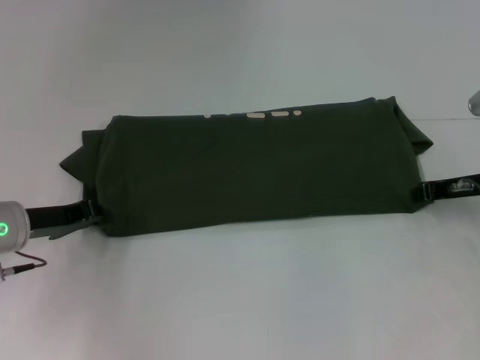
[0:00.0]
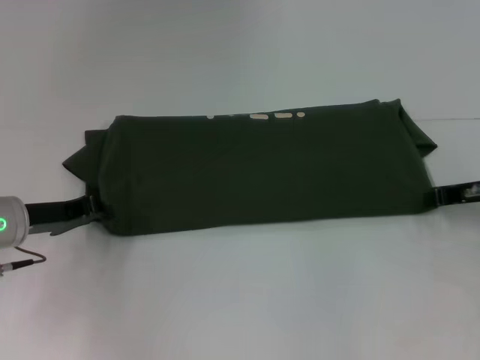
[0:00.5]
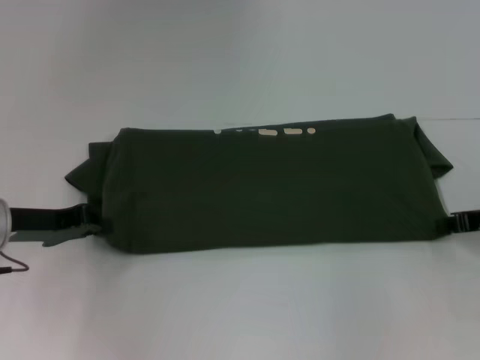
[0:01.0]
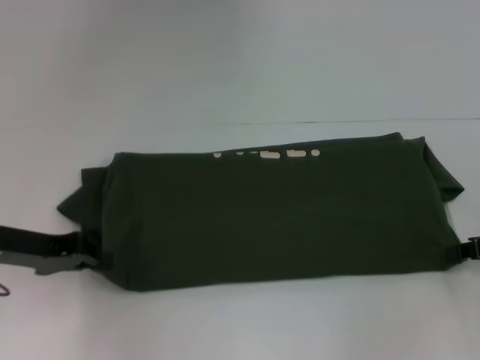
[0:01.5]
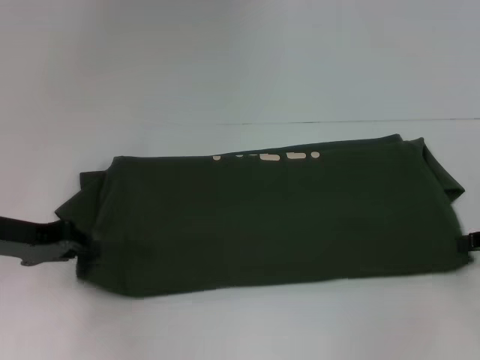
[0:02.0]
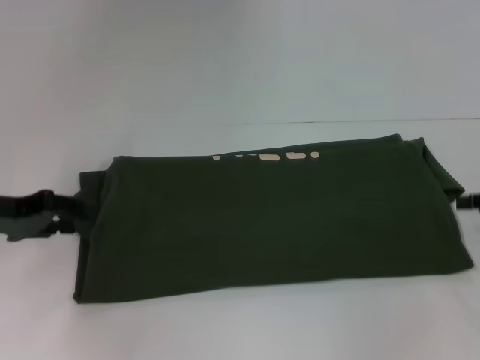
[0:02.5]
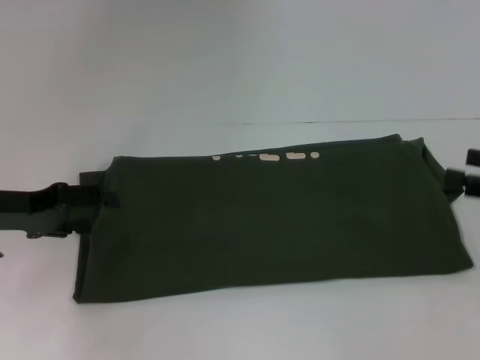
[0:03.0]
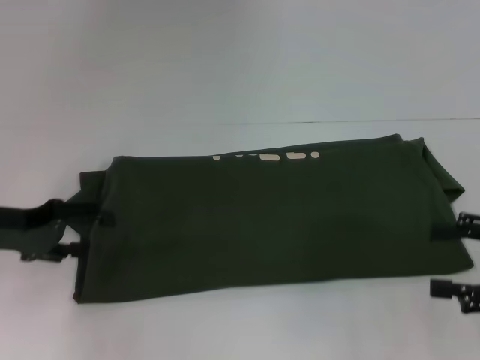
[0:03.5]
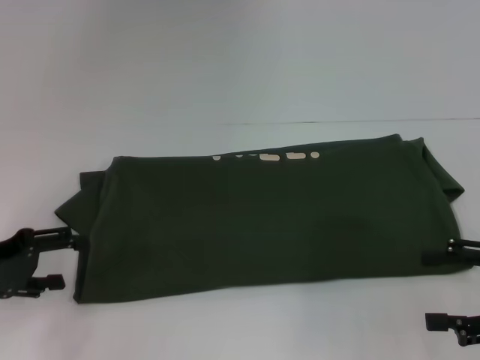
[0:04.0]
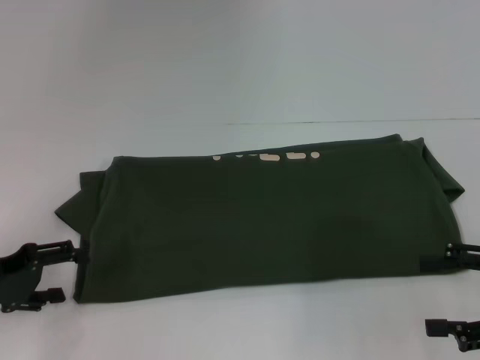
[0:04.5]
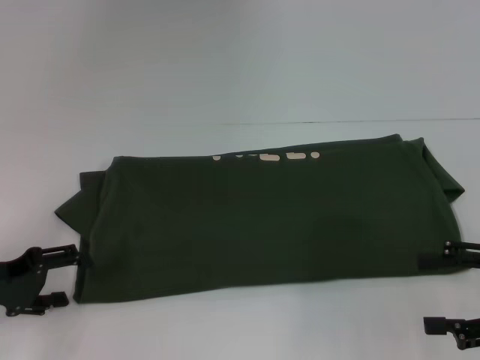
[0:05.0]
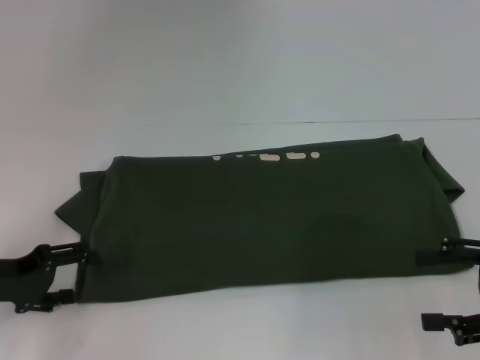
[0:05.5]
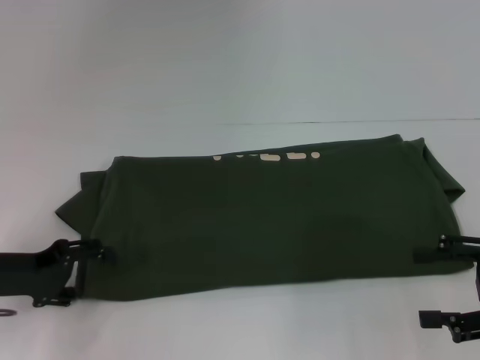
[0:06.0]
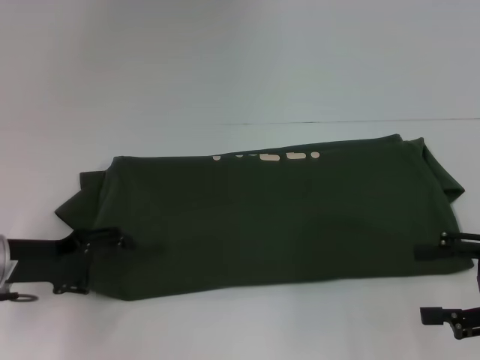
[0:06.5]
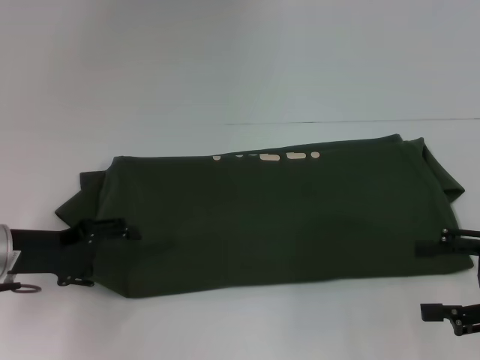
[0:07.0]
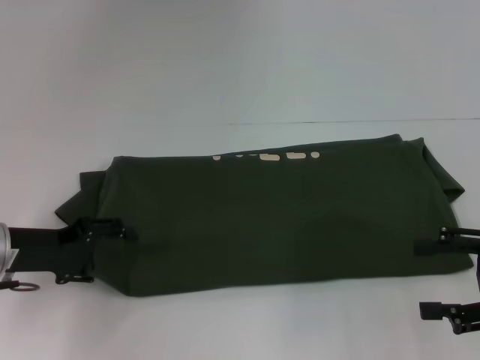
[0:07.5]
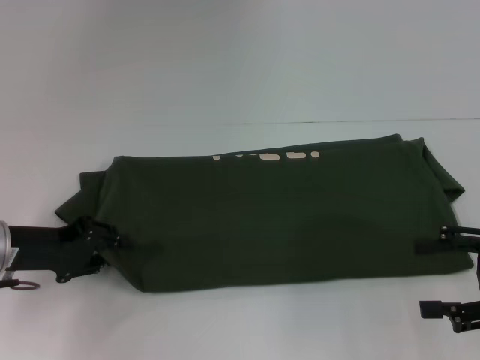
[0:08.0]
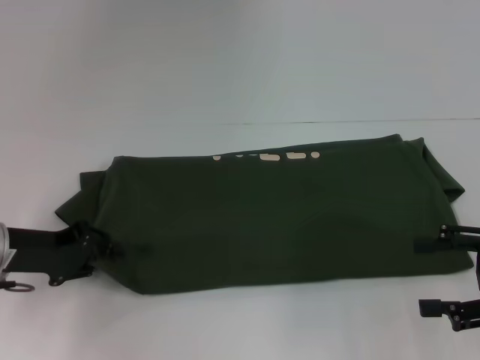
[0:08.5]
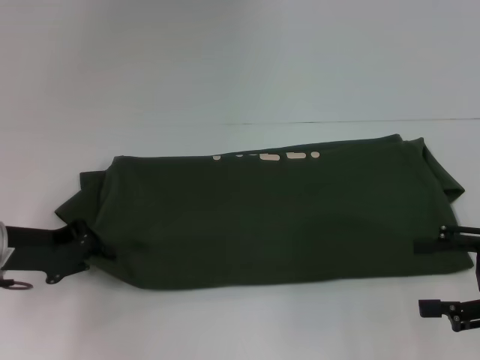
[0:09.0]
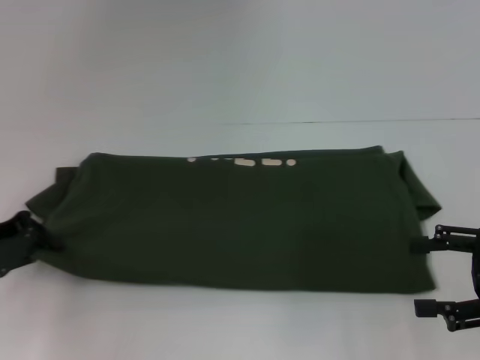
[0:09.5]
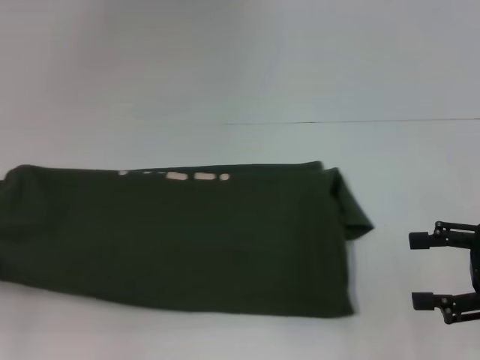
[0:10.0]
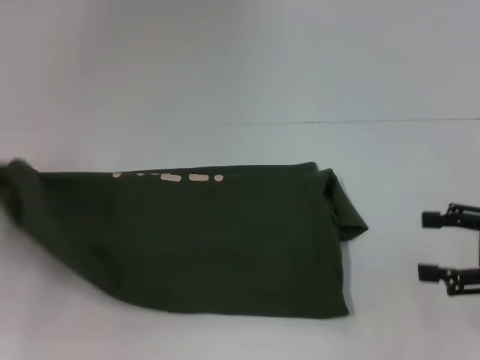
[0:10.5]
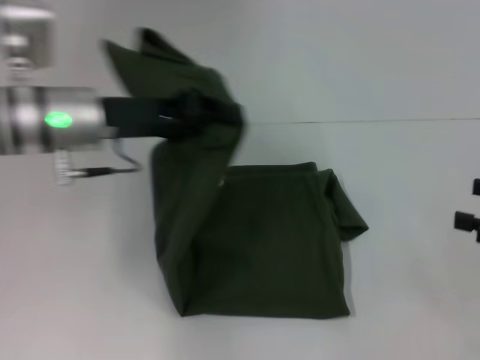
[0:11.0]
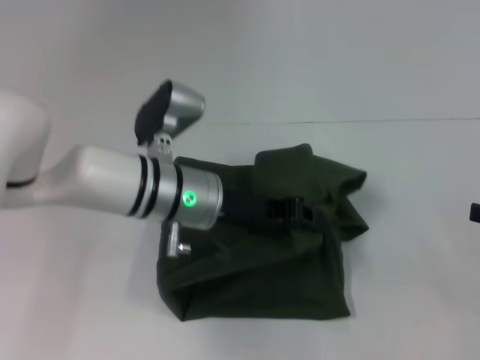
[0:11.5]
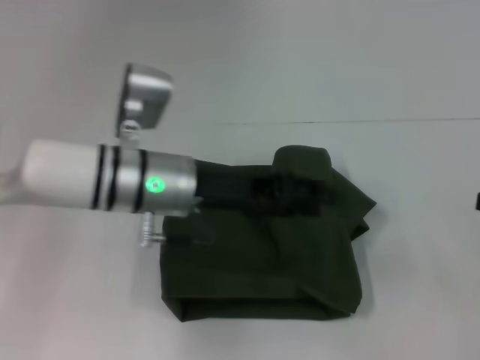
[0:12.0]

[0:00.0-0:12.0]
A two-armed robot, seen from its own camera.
Step, 0:00.0 to 0:02.0: Pull the clothes with your left hand.
Step, 0:00.0 to 0:02.0: Pull the clothes with your right hand.
Step, 0:02.5 to 0:11.5: Fold the clothes with your left hand.
0:00.0 to 0:02.0: The left gripper moves approximately 5 cm, while the right gripper travels backward and to the right by approximately 10 cm.
0:02.0 to 0:04.0: The right gripper shifts roughly 5 cm backward, and opens, while the left gripper changes place by some 5 cm, and opens up.
0:04.0 to 0:06.0: There are only small adjustments of the grippers.
0:06.0 to 0:08.0: The left gripper closes.
0:08.0 to 0:10.0: The left gripper goes approximately 10 cm to the left, and closes.
0:10.0 to 0:12.0: The right gripper heads to the right, covering about 5 cm. Meanwhile the left gripper heads to the right, covering some 30 cm.

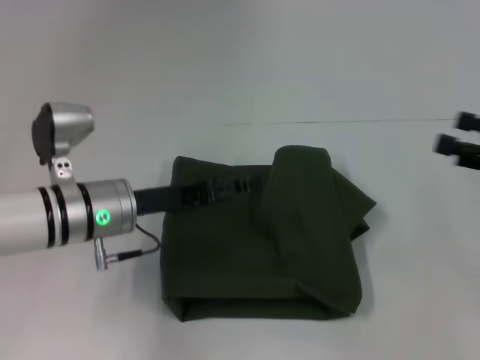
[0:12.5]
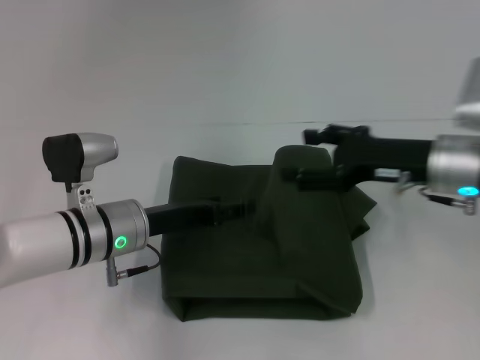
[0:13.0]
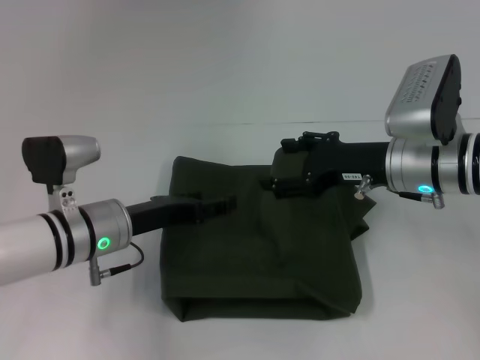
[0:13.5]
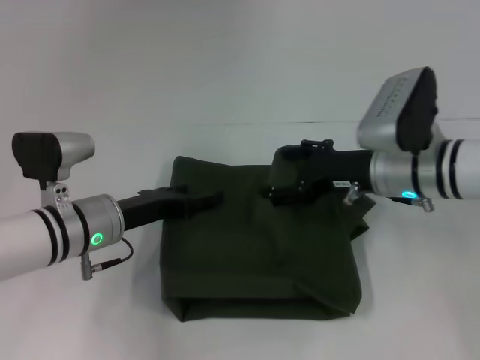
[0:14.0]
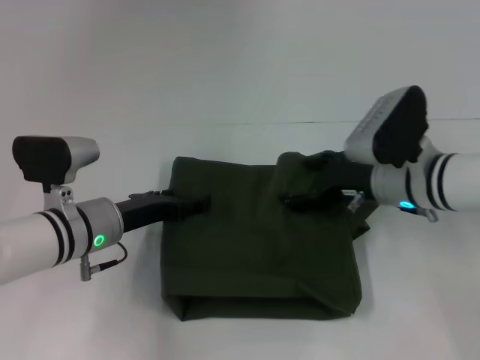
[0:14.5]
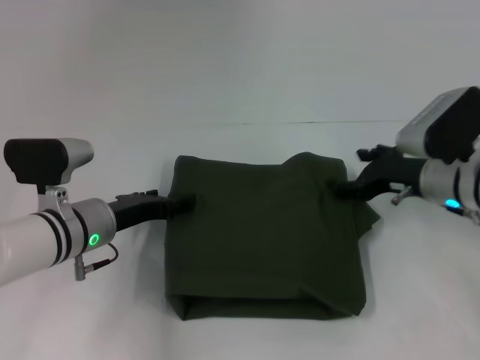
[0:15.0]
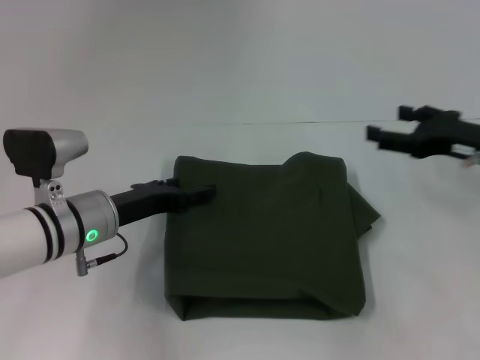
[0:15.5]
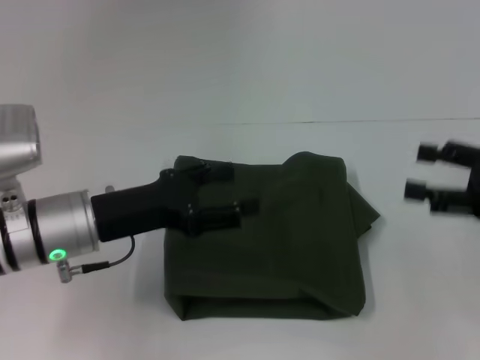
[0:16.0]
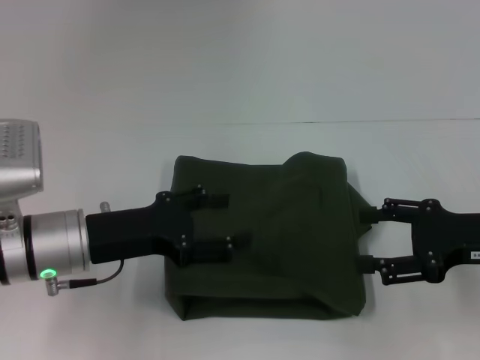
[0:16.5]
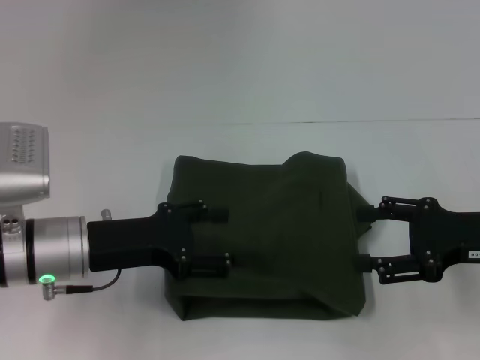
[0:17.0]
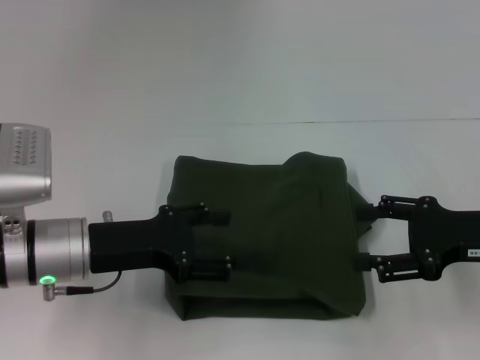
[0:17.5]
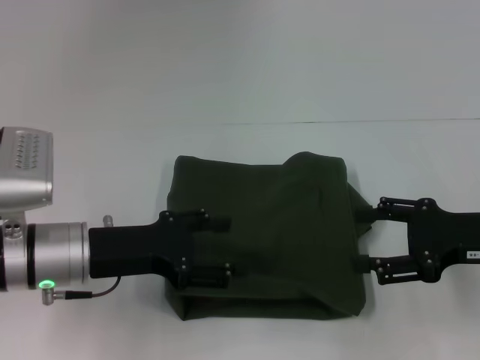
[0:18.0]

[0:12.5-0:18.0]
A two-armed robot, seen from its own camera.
0:12.5 to 0:14.5: The right gripper travels to the left and forward by some 20 cm.
0:14.5 to 0:16.0: The left gripper is displaced upward by about 5 cm. Meanwhile the right gripper travels to the right and backward by roughly 20 cm.
0:16.0 to 0:18.0: The right gripper changes place by roughly 5 cm.

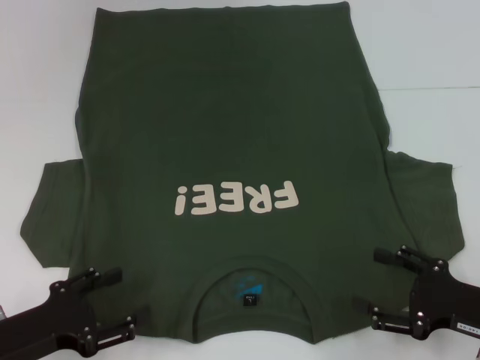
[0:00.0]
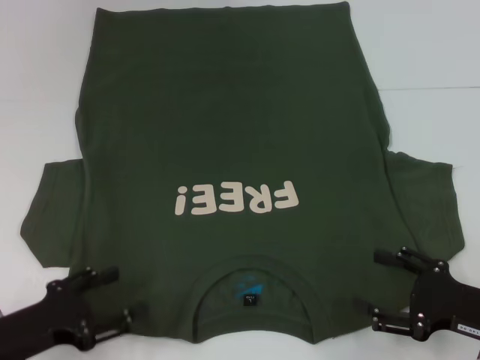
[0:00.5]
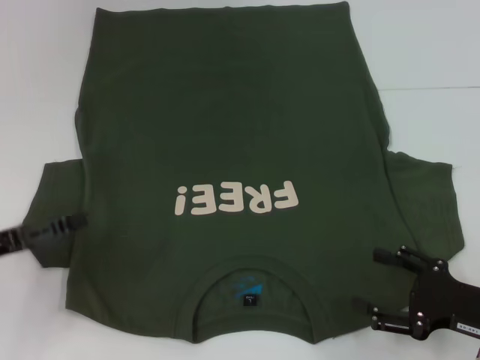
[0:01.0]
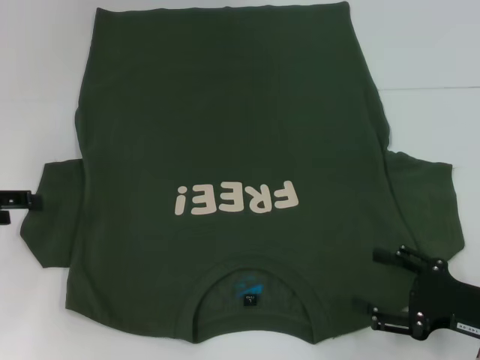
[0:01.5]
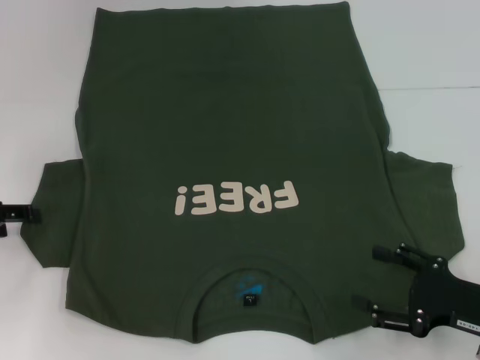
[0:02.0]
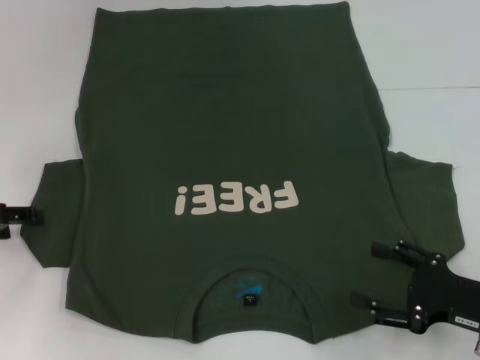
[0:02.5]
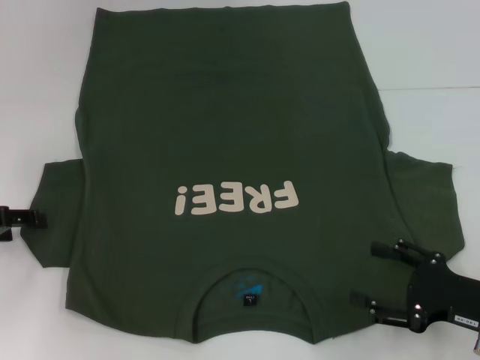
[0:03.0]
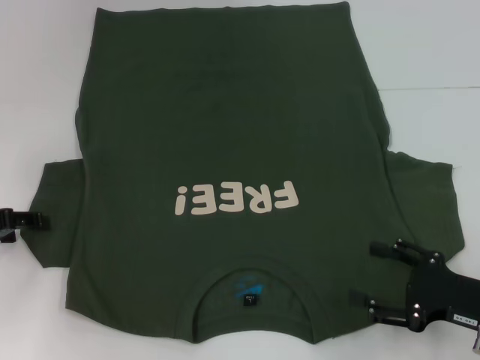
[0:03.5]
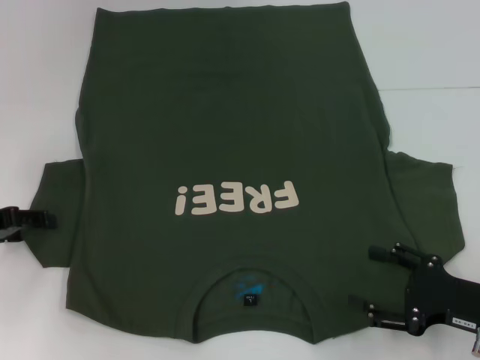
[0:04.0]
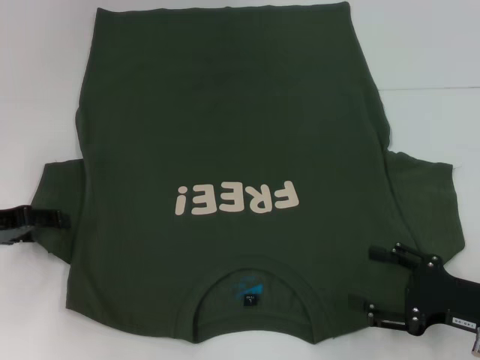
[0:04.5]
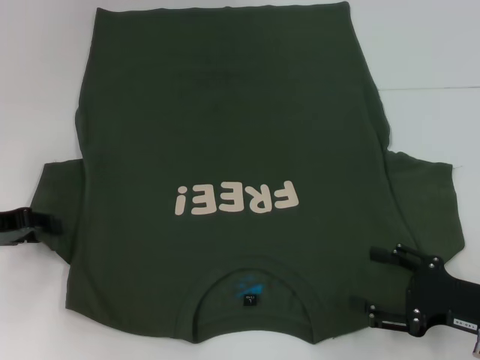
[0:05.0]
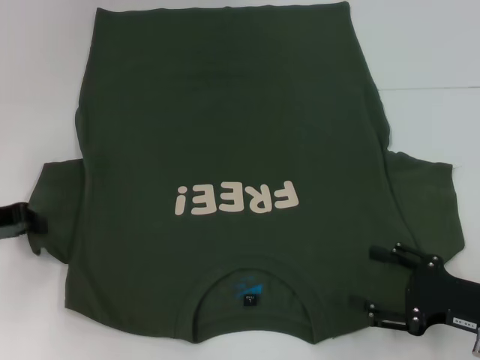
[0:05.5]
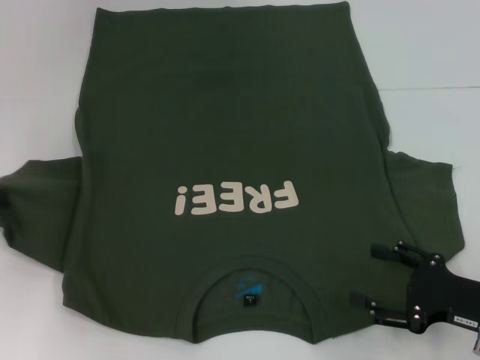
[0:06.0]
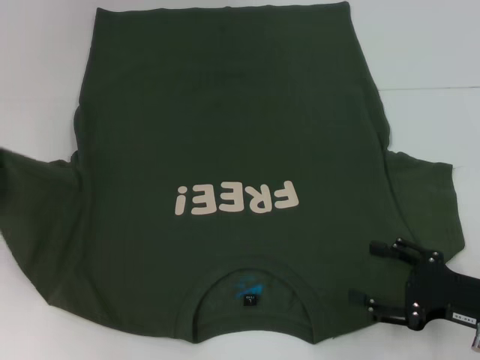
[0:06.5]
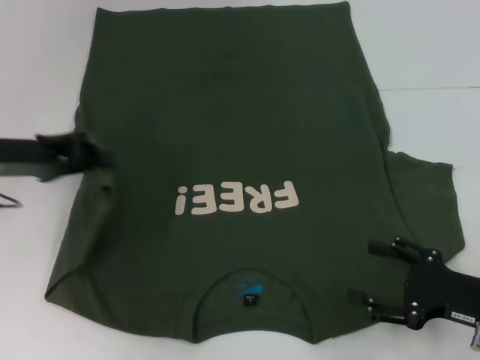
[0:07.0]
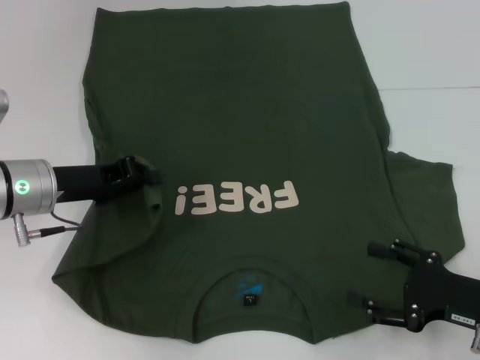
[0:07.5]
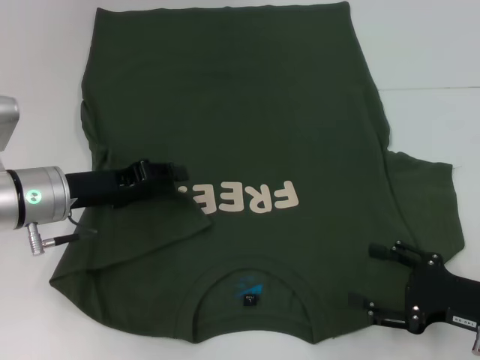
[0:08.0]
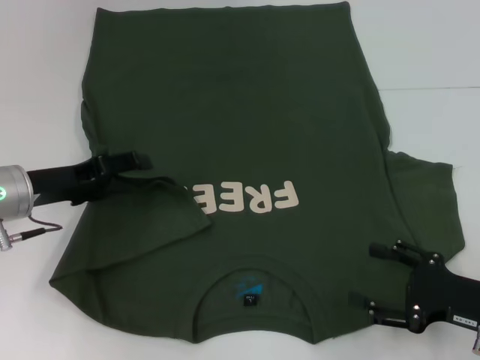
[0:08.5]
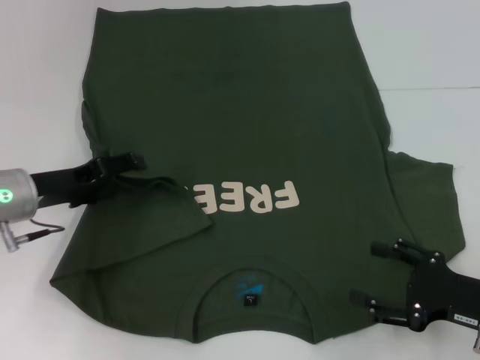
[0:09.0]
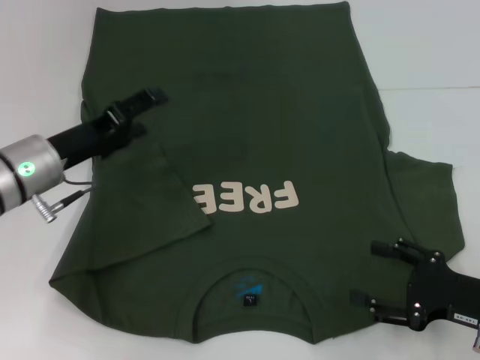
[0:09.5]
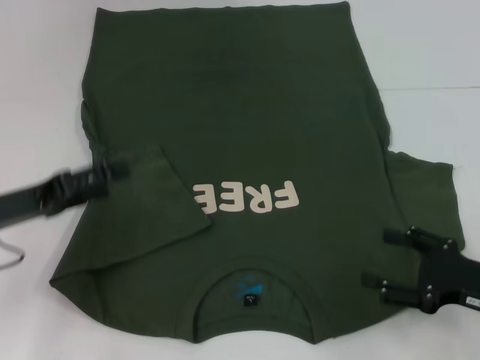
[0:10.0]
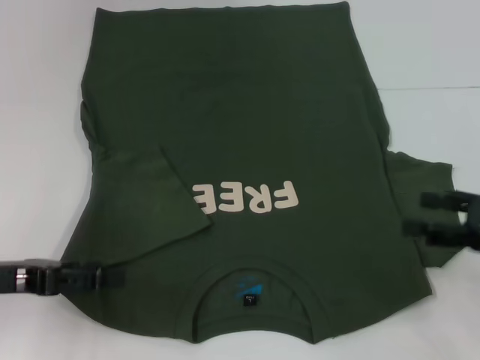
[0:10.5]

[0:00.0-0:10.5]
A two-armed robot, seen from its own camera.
Step, 0:00.0 to 0:08.0: Fold the bottom left sleeve with your left hand.
0:00.0 to 0:02.0: The left gripper moves forward, to the left and upward, some 15 cm.
0:02.0 to 0:04.0: The grippers make only small movements.
0:04.0 to 0:06.5: The left gripper heads upward, covering about 5 cm, and closes up.
0:06.5 to 0:08.5: The left gripper travels to the right and downward by approximately 15 cm, and opens.
0:08.5 to 0:10.5: The right gripper goes some 10 cm upward. The left gripper travels backward by some 10 cm.
